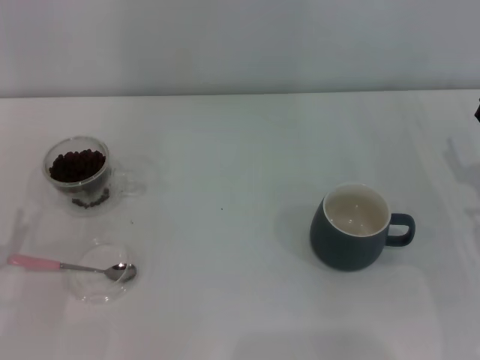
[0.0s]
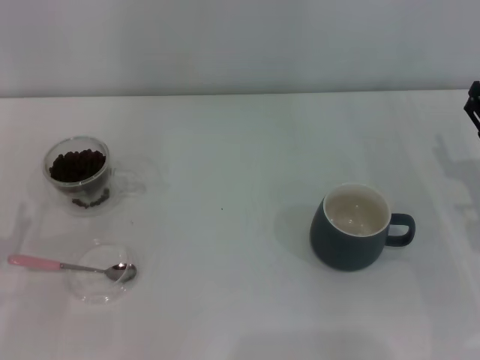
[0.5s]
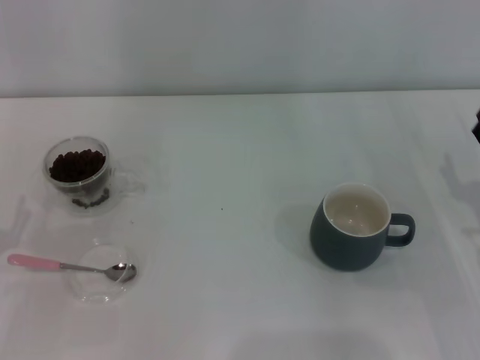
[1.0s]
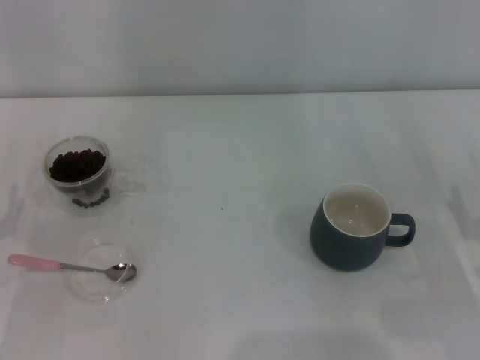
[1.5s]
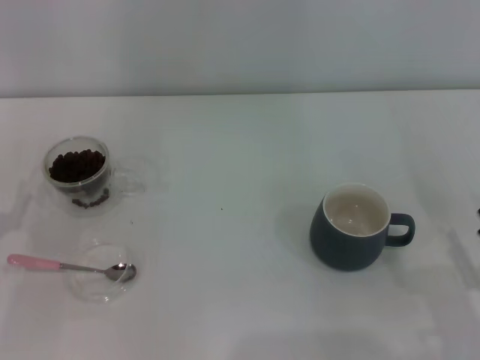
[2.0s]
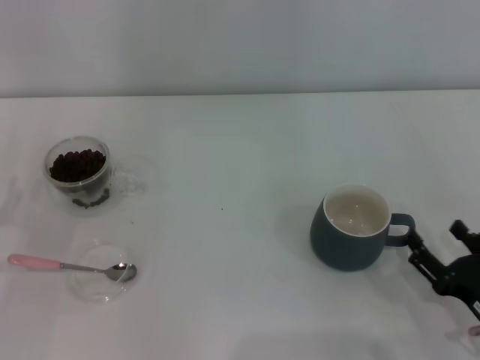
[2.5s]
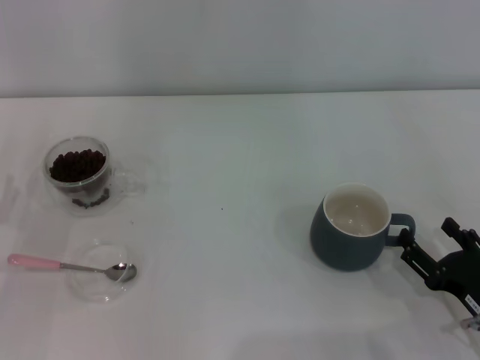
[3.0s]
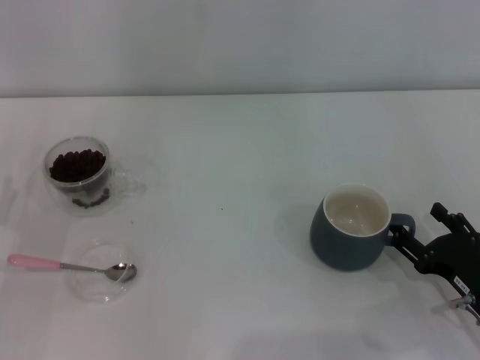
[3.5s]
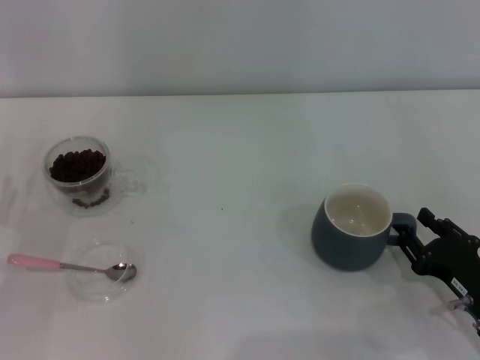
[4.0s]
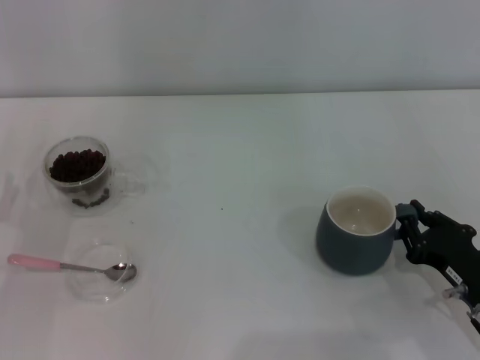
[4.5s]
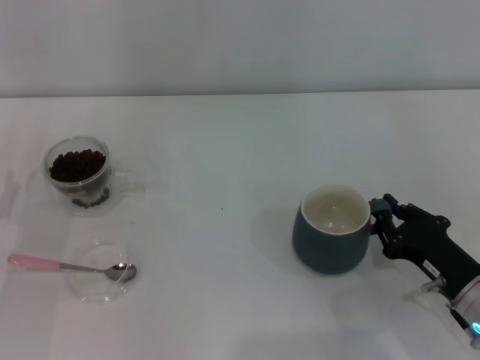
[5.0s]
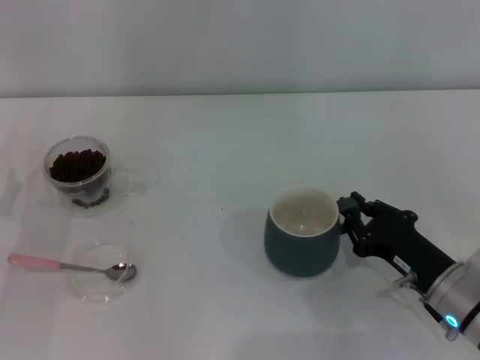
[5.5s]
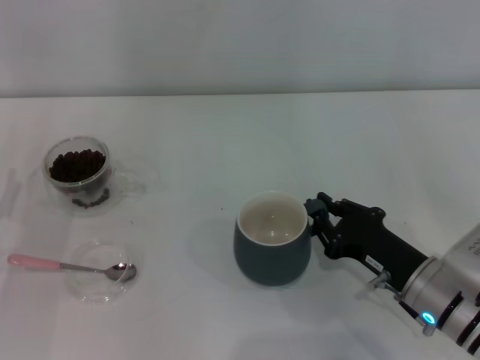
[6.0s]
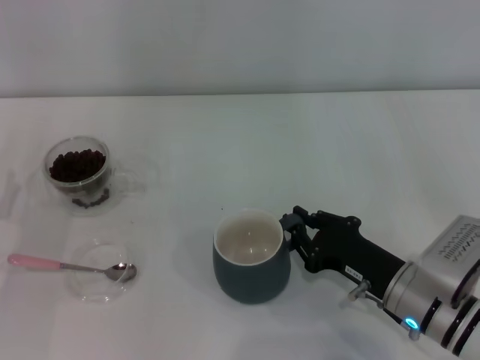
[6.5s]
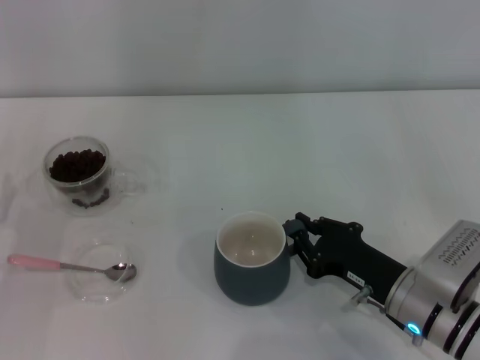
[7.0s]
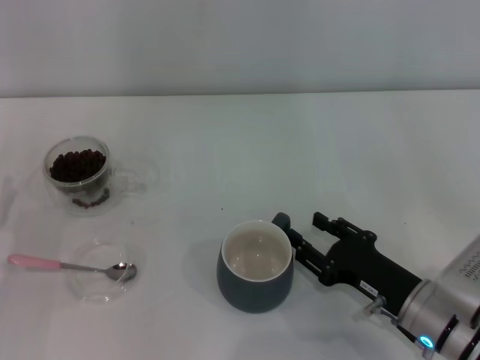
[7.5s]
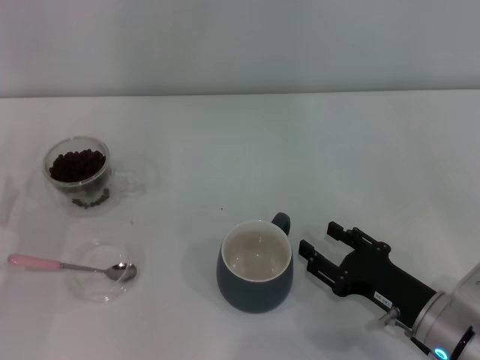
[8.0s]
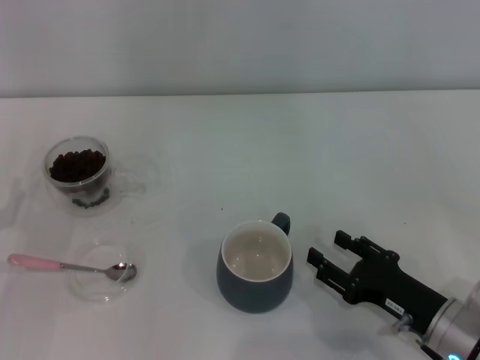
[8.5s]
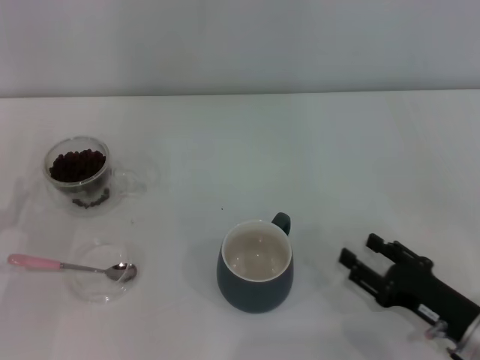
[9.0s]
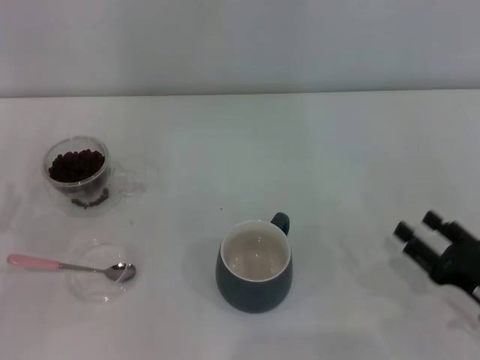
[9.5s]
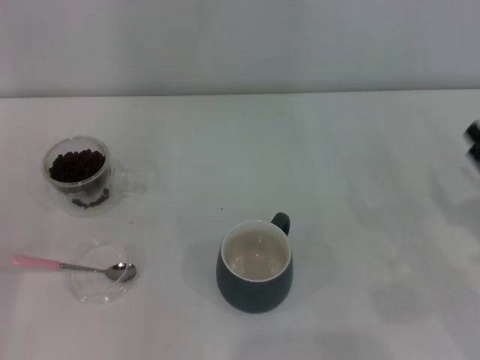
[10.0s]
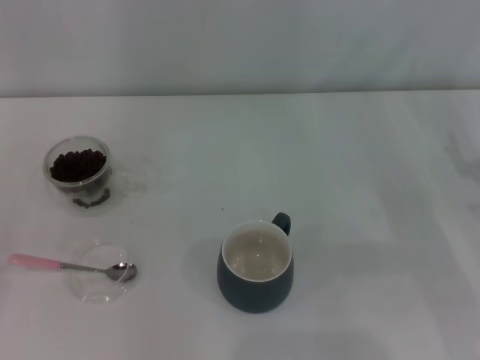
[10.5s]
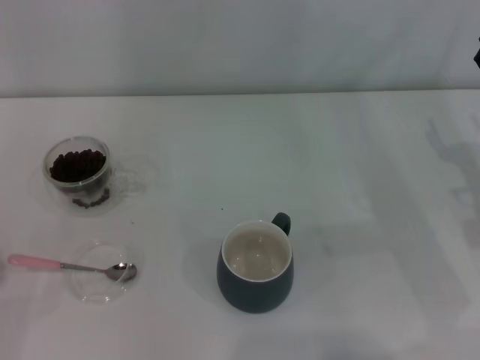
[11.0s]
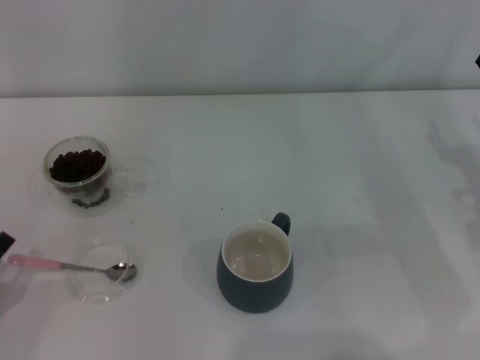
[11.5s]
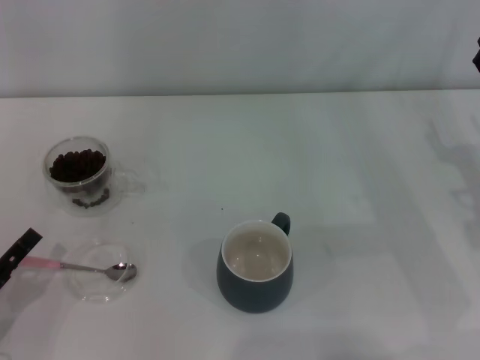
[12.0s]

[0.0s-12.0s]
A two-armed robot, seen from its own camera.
Task of the whole recording: Use a pink spoon to take out the coffee beans from the glass and pour them into the gray cup.
Step, 0.0s to 8.0s: Move the cup to the center of view with the left gripper.
2.0s to 4.0s: The right gripper shifts about 5 cm forward.
4.0s to 6.0s: The right gripper travels to the left by roughly 5 cm, and closes up.
6.0s to 8.0s: The right gripper opens its fingers.
8.0s to 10.0s: The right gripper travels to the right by about 10 cm.
10.0s to 12.0s: The left gripper goes some 5 cm to the right.

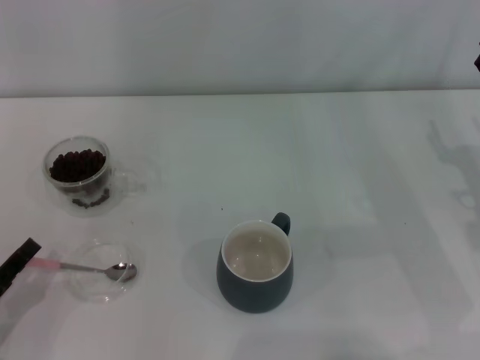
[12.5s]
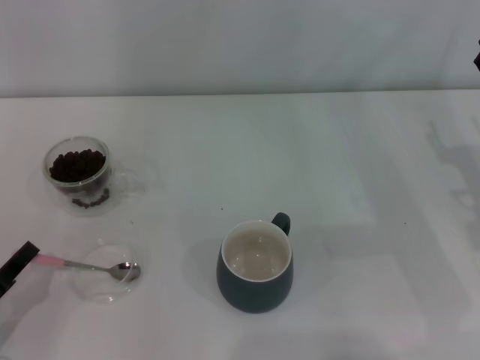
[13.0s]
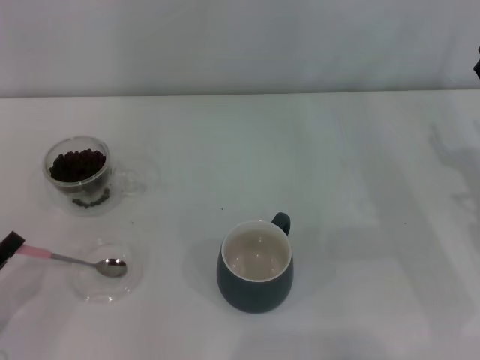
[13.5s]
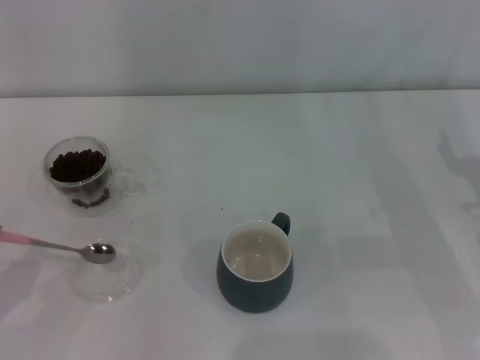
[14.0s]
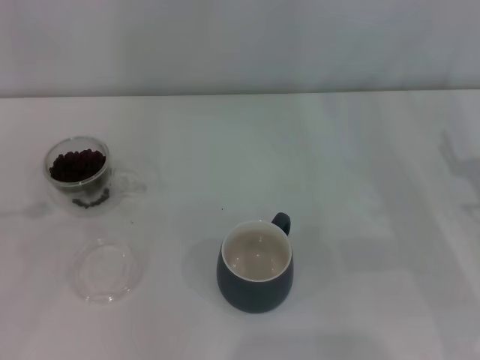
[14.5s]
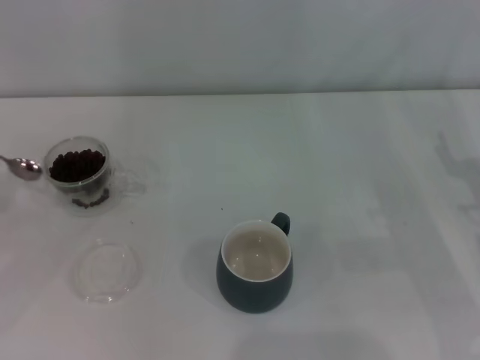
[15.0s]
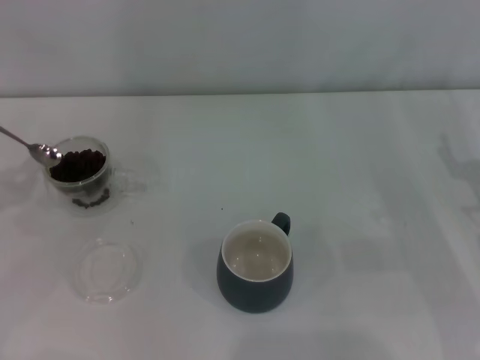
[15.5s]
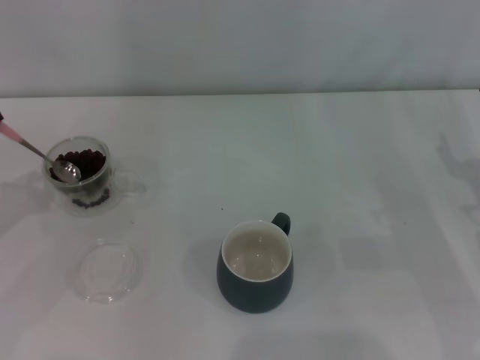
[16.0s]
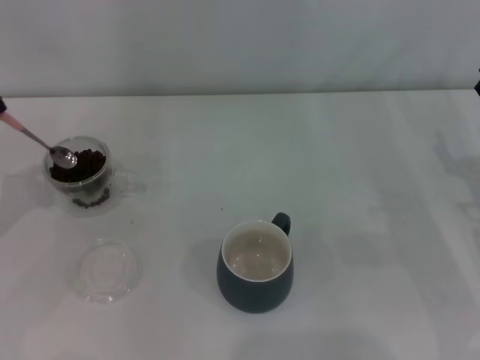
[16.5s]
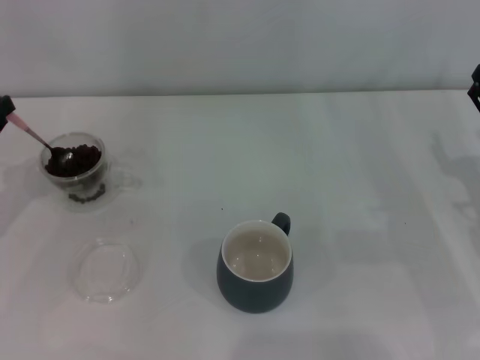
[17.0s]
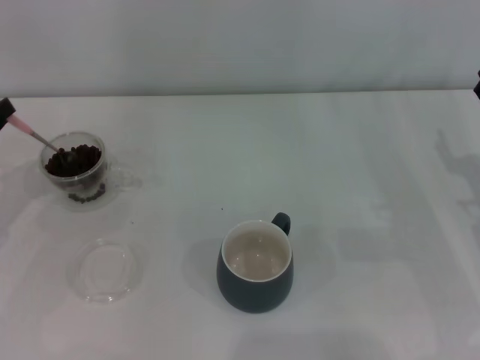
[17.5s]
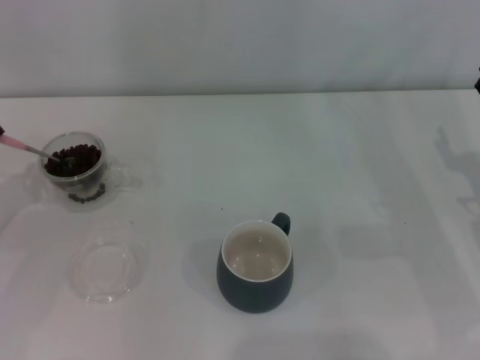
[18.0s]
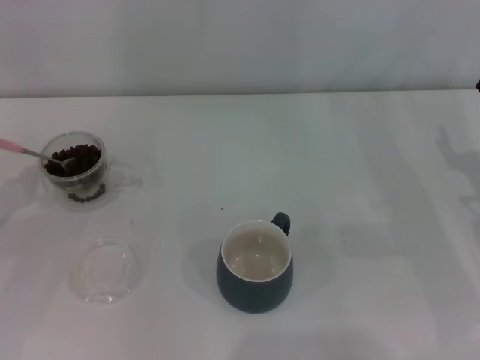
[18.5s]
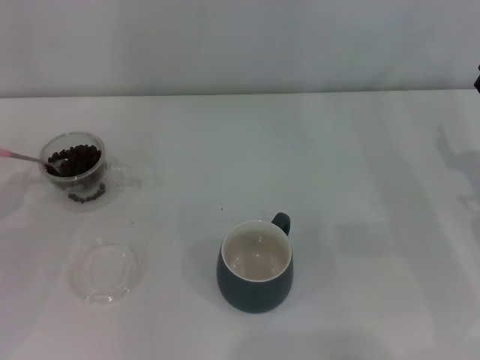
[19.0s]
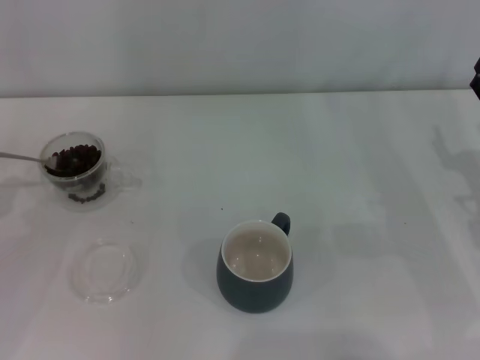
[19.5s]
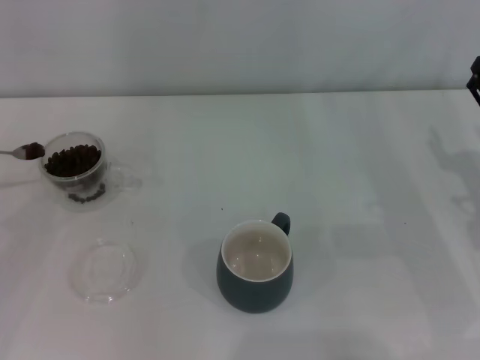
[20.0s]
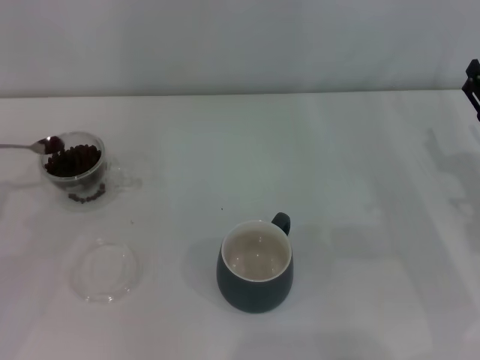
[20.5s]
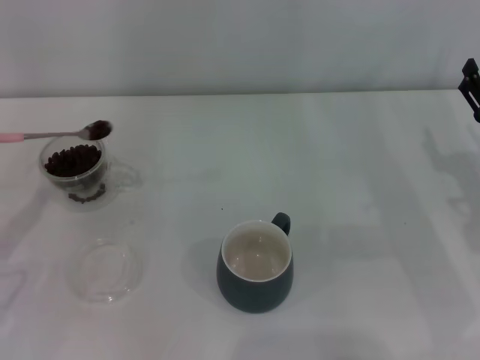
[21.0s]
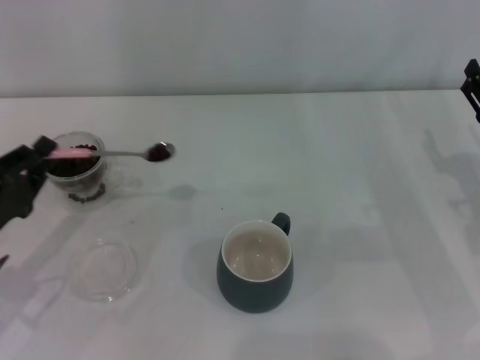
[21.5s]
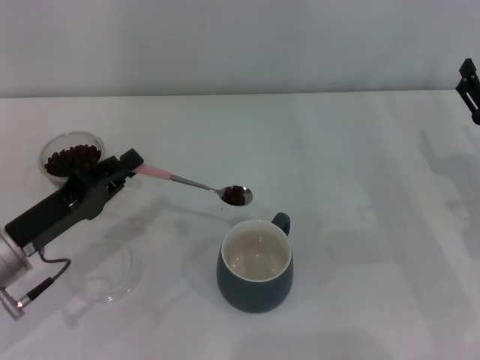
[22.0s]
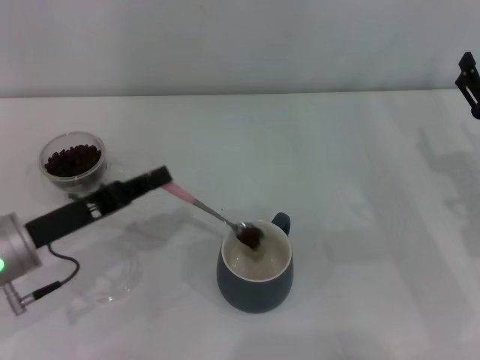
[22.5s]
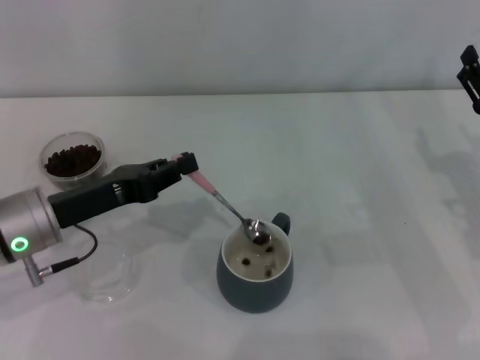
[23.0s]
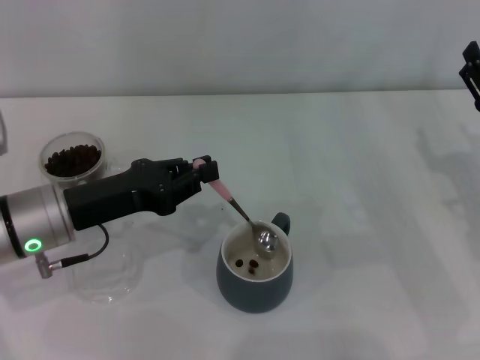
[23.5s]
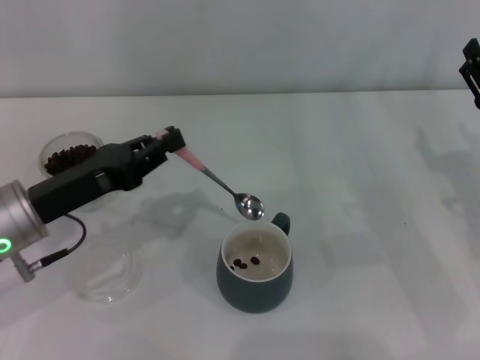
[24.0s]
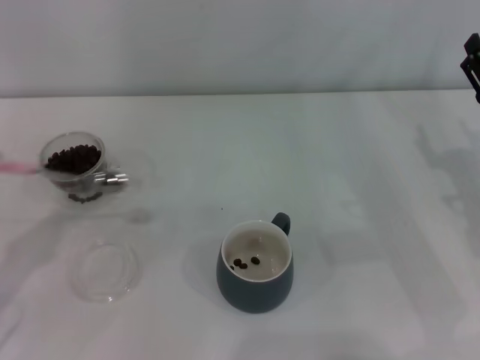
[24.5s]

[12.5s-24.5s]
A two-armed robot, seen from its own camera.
Task of the whole recording: Use a pink spoon to take out the coffee beans from the glass and pour them into the gray cup.
12.5s to 14.5s: The left gripper moves to the left and upward, about 15 cm, and closes.
20.5s to 22.5s: The left gripper is displaced to the right by some 15 cm.
22.5s to 24.5s: The left gripper moves to the left and backward, some 10 cm.

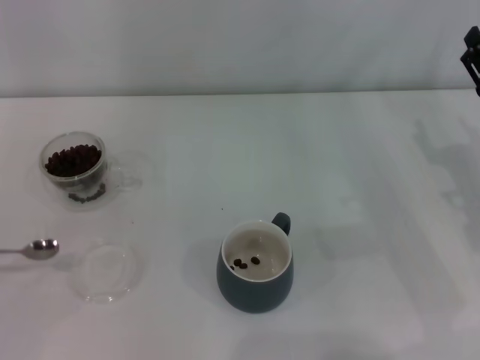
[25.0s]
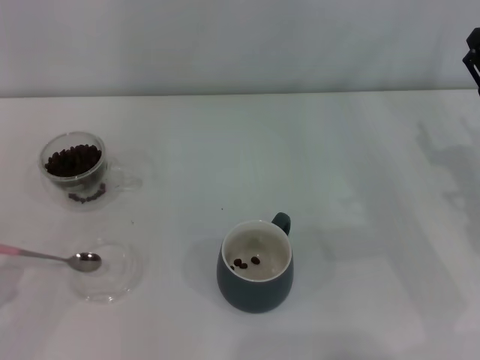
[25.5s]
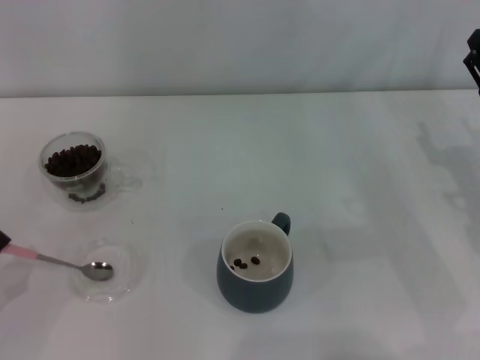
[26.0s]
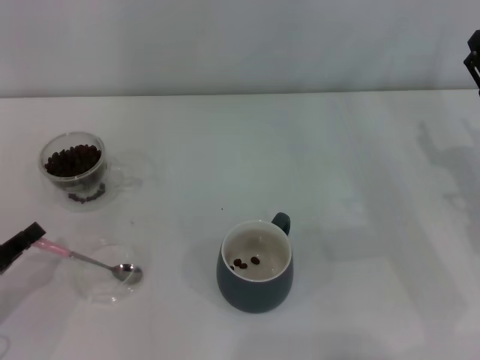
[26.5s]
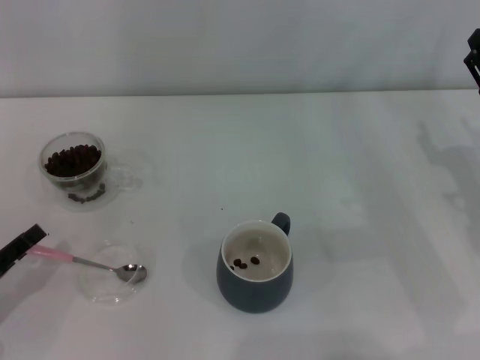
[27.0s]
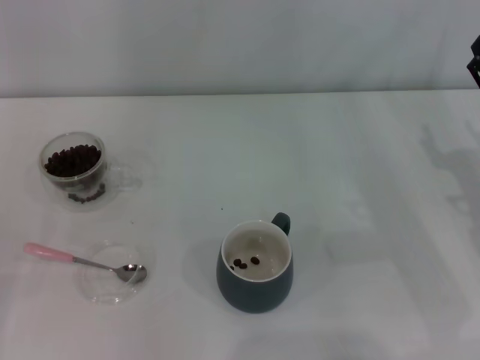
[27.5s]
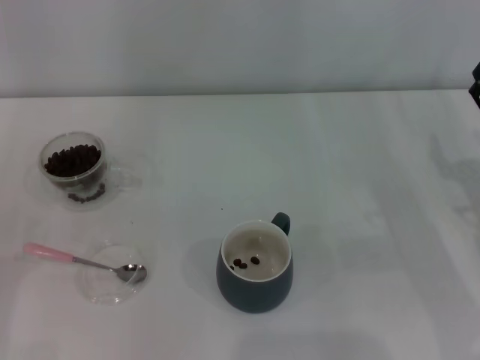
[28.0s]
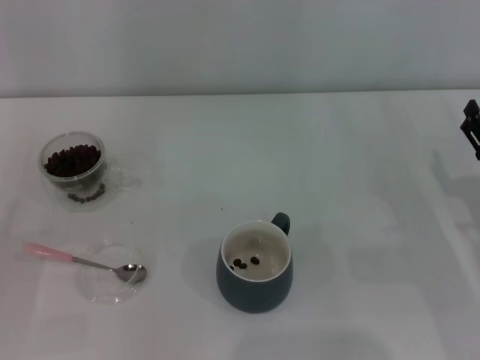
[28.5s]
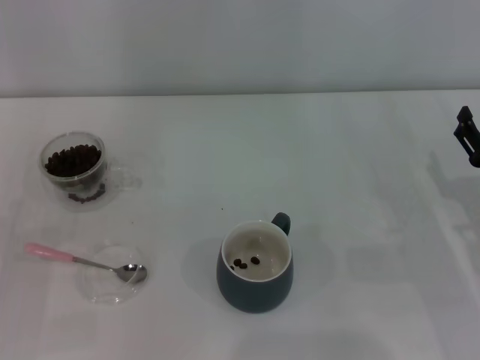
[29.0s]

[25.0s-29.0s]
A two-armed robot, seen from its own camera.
Task of the whole recording: Use a pink spoon to take out the coffee beans from the glass and pour them into the gray cup.
25.0s to 27.0s: The left gripper heads forward, covering roughly 5 cm, and opens up.
27.0s to 29.0s: The right gripper shifts by about 5 cm. The left gripper opens up.
